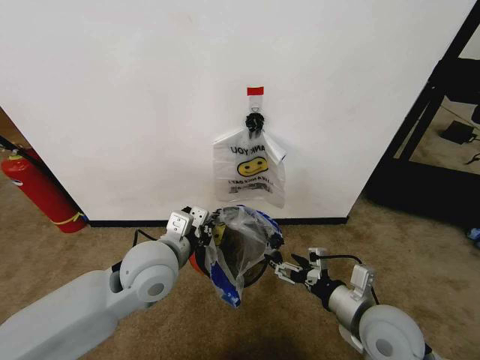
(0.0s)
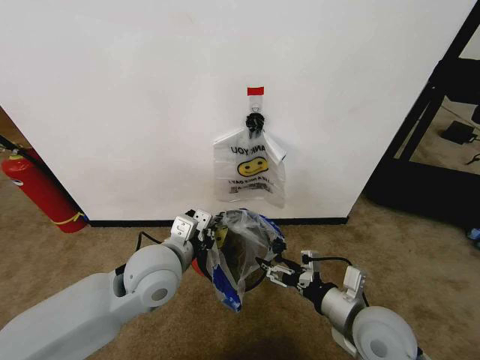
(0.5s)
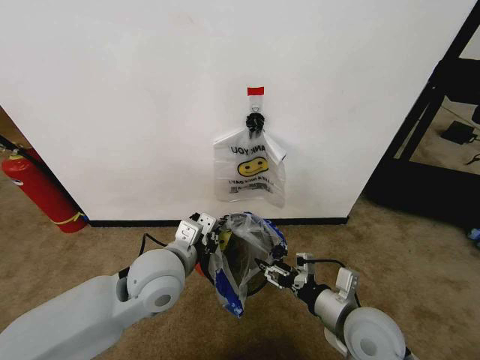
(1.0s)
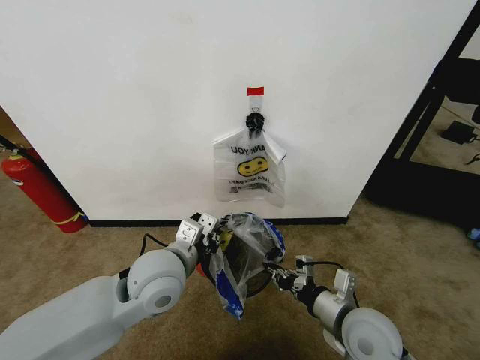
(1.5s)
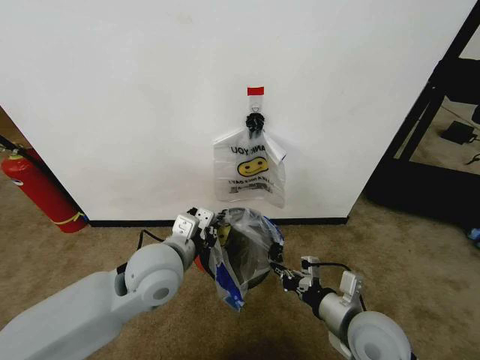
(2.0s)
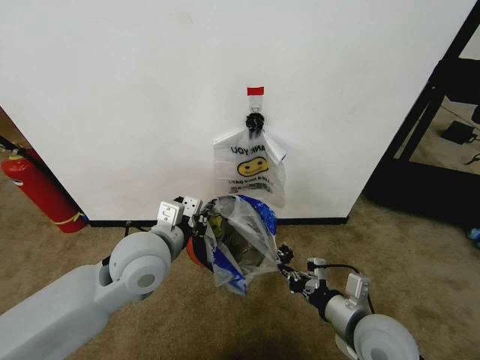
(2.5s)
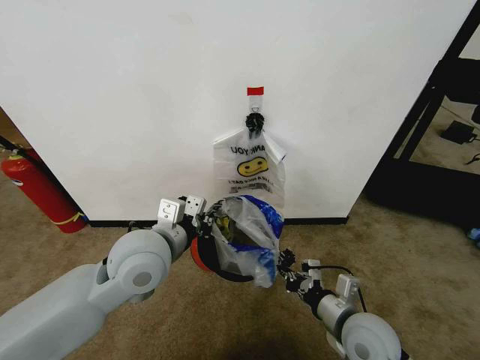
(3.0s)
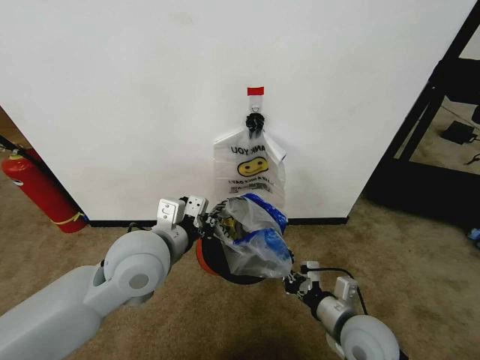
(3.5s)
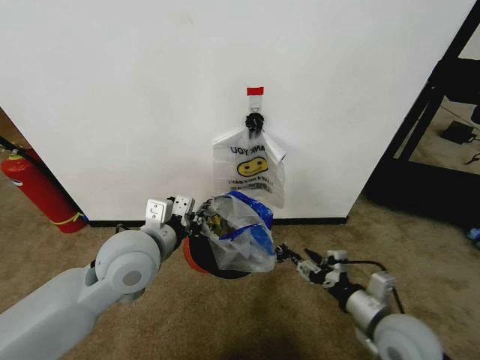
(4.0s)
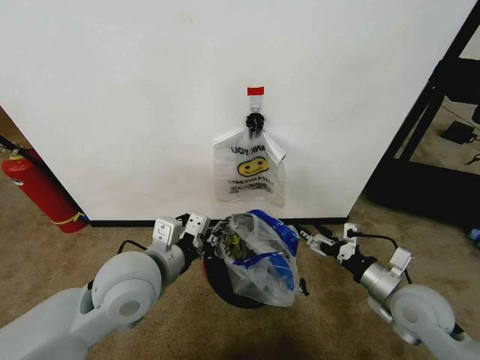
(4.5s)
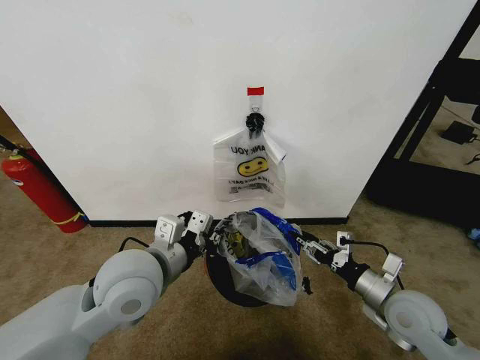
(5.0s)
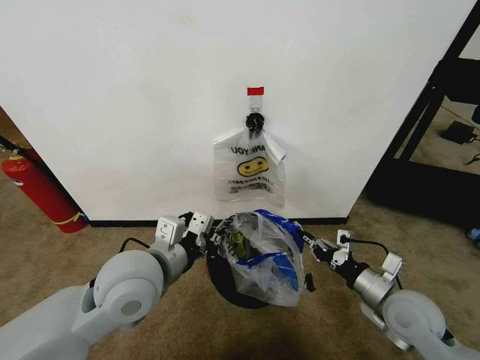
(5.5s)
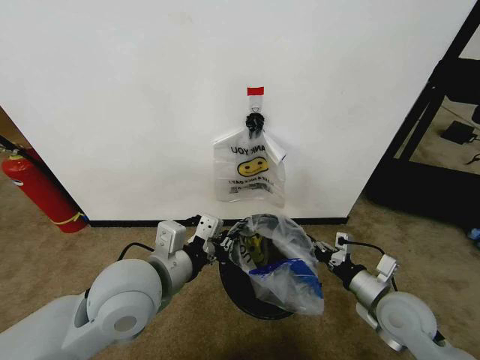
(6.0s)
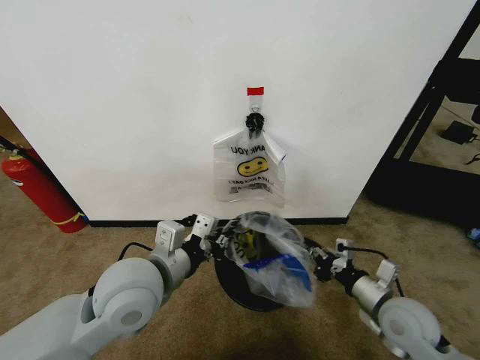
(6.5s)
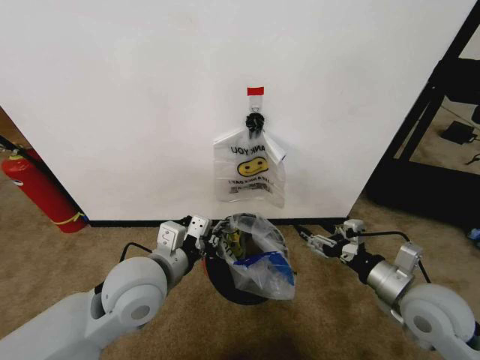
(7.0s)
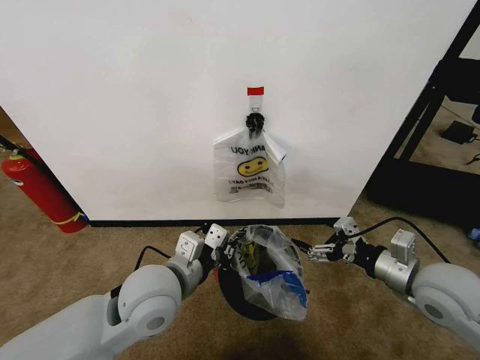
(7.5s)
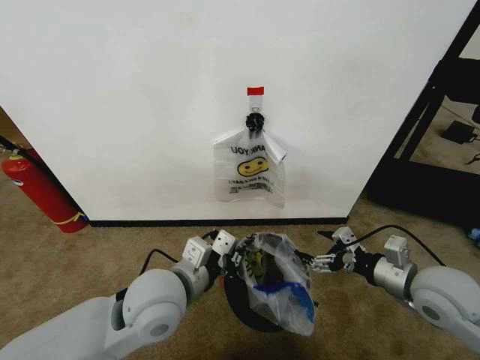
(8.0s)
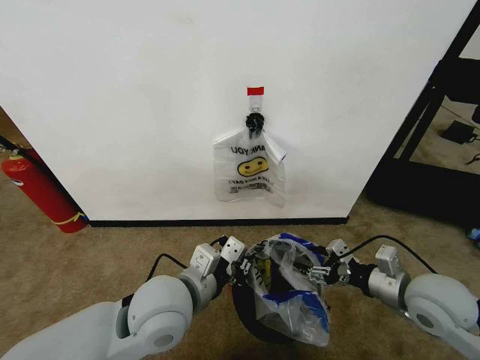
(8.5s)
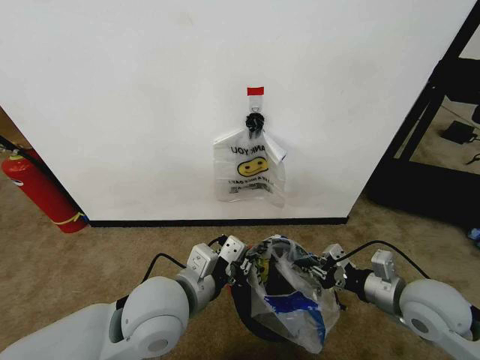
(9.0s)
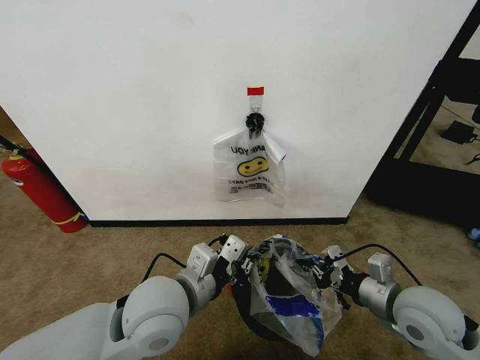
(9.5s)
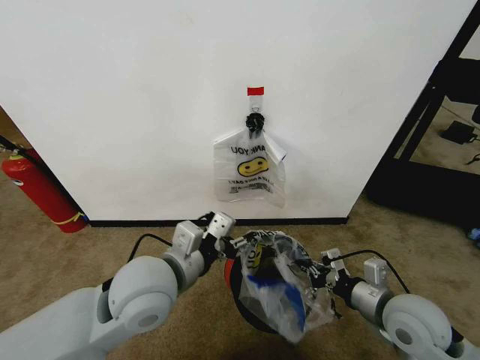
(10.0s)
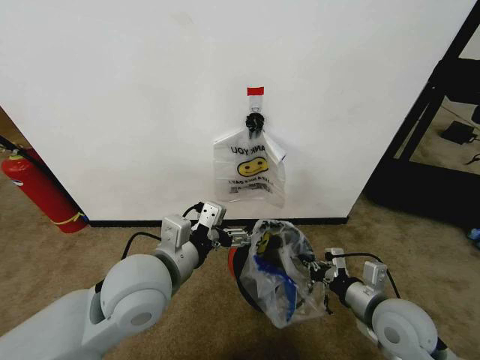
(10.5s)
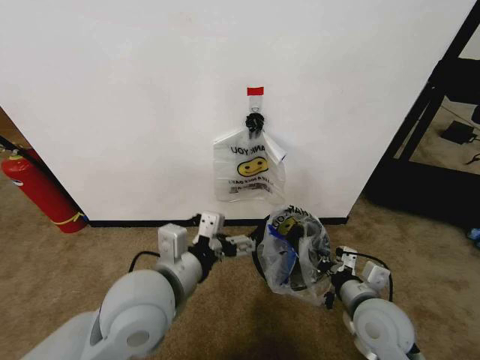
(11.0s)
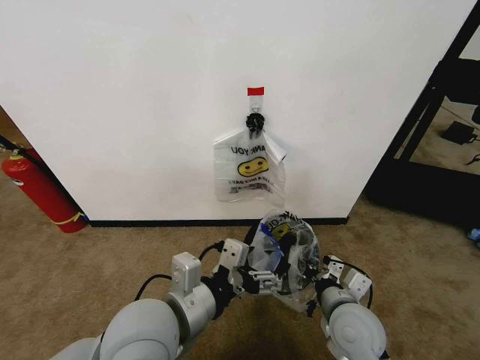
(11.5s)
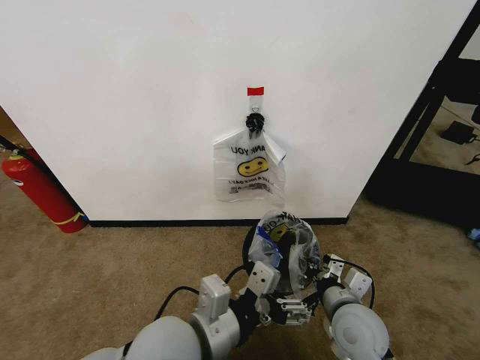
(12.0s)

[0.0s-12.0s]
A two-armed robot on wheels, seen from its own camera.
Task of the whole recording: Pick up the garbage bag from the wall and place it over the trash bin.
0.0s to 2.0s: The right gripper closes.
2.0s to 4.0s: The right gripper opens its fingers.
4.0s to 6.0s: The left gripper moves backward, some 5 cm. Meanwhile the right gripper changes place by about 5 cm, and closes.
6.0s to 8.0s: The left gripper shifts by about 5 cm; the right gripper moves upward, some 10 cm, and opens its fingers.
8.0s to 10.0s: The left gripper opens its fingers; the right gripper changes place by some 5 cm, and closes up.
10.0s to 12.0s: The left gripper travels backward by some 10 cm. The right gripper goes approximately 10 cm to the left.

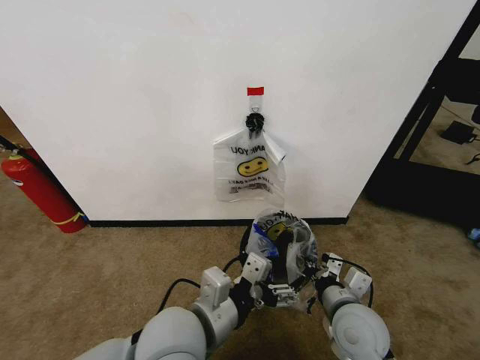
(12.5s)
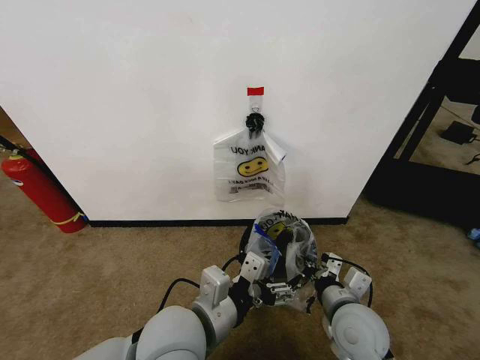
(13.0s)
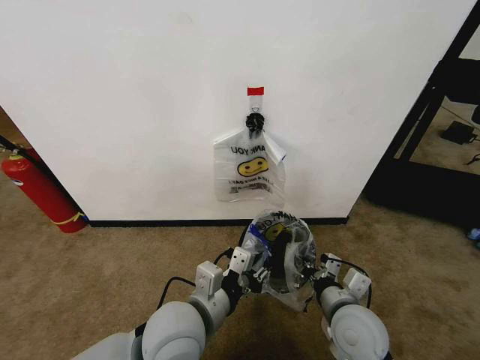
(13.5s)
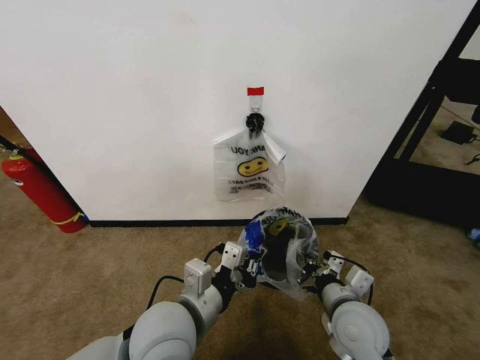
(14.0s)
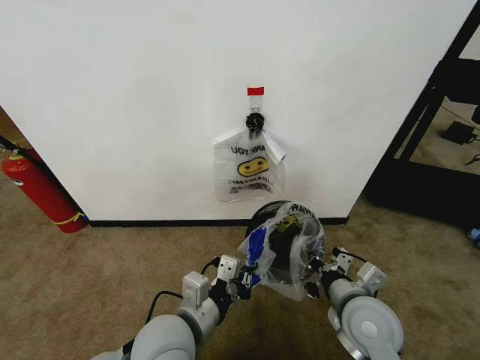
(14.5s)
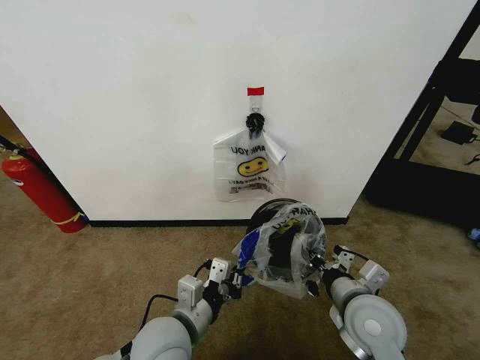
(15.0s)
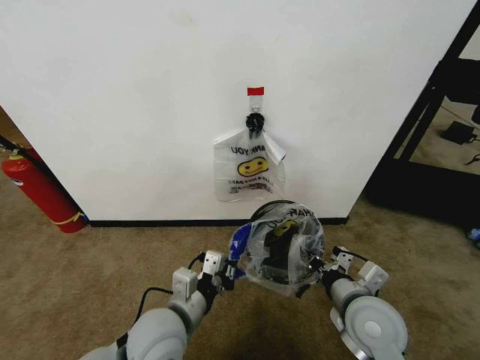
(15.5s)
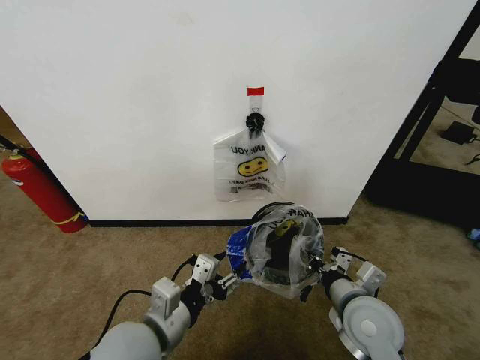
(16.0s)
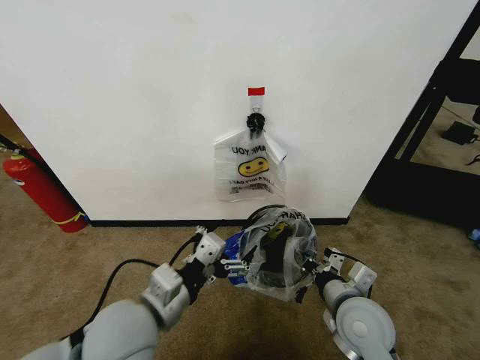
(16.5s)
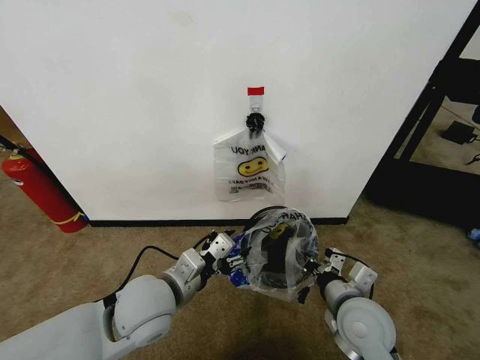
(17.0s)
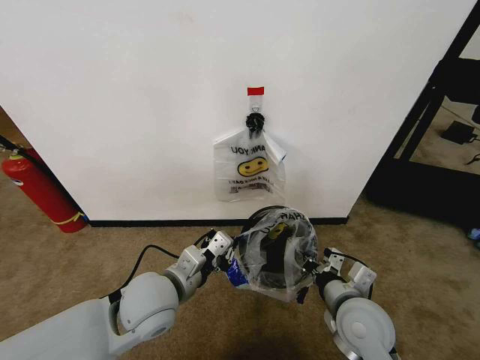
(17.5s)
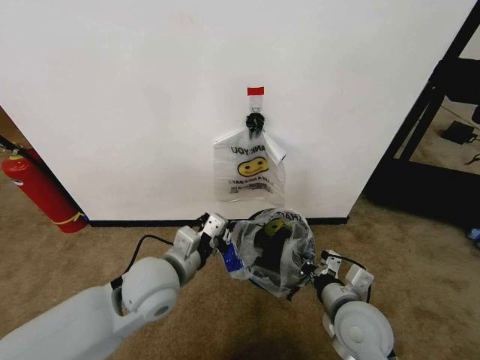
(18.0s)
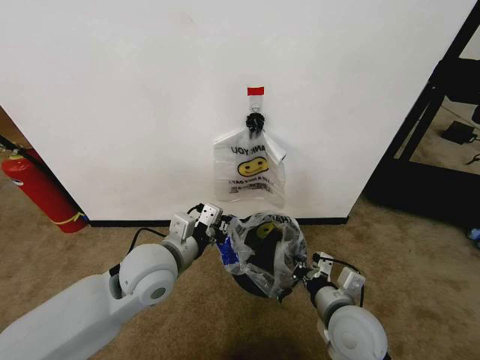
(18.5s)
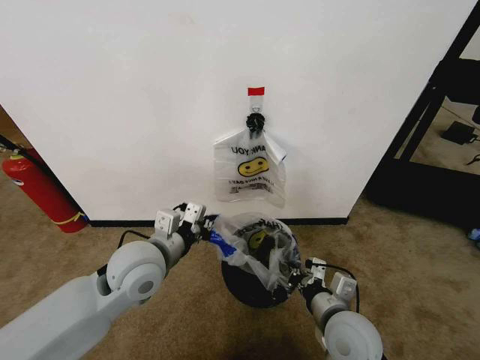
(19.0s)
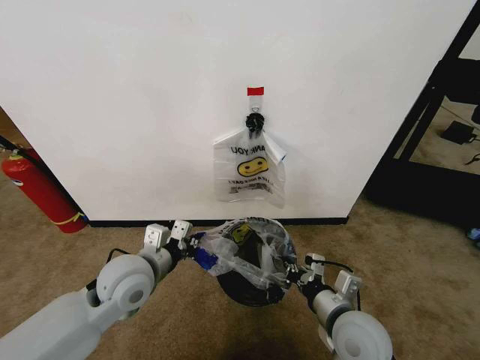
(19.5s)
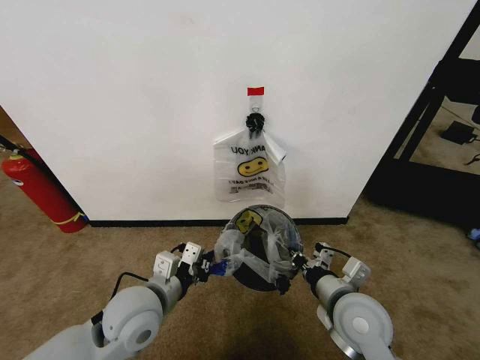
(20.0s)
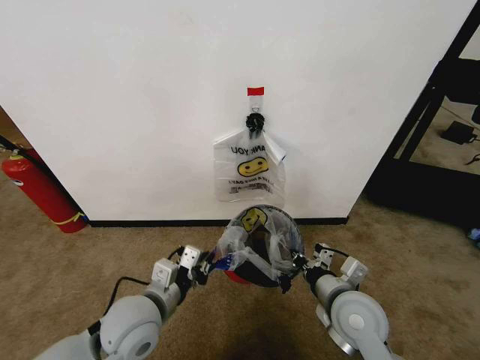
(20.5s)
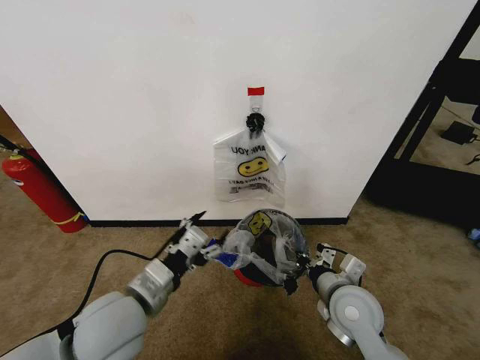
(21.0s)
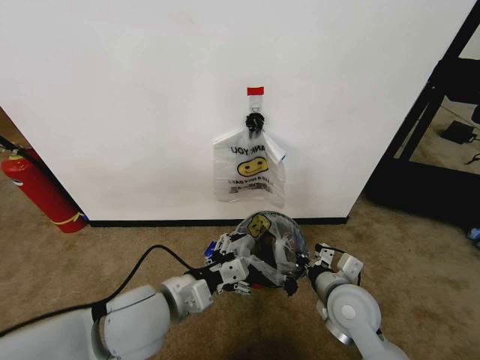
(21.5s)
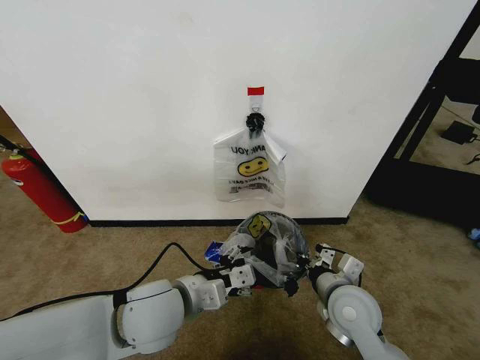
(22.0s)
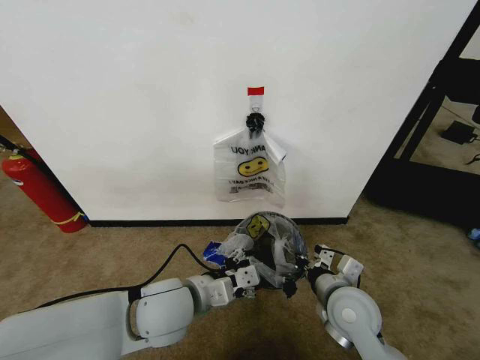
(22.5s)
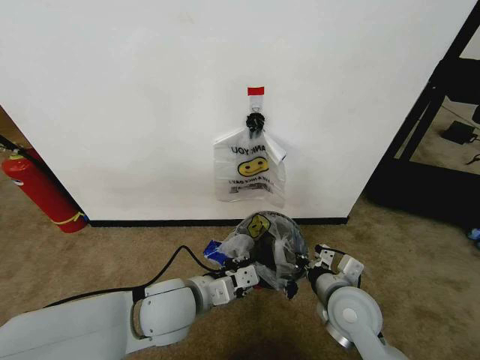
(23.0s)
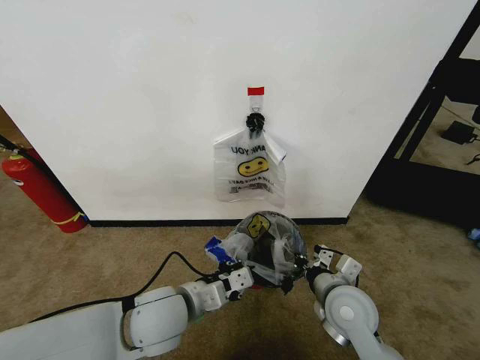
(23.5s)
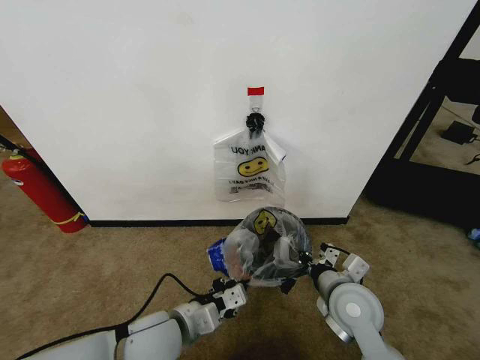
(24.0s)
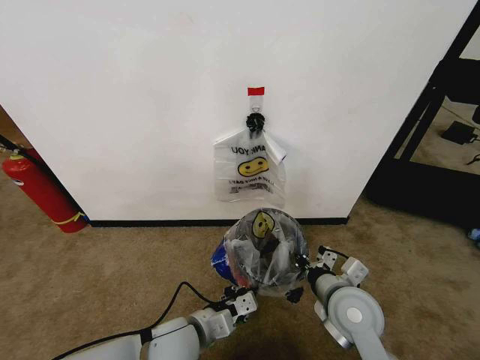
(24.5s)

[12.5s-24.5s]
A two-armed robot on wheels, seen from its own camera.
Task of the whole recording: Pick up the garbage bag from the wall and place it over the trash bin.
12.5s to 14.5s: The left gripper closes.
14.5s to 16.5s: The left gripper ends up roughly 5 cm from where it was, and opens its fingers.
16.5s to 18.5s: The left gripper is displaced forward by roughly 10 cm, and closes.
18.5s to 20.5s: The left gripper moves backward and downward, roughly 10 cm.
20.5s to 22.5s: The left gripper heads to the right, covering approximately 5 cm, and opens up.
22.5s to 24.5s: The left gripper goes some 10 cm downward, and closes.

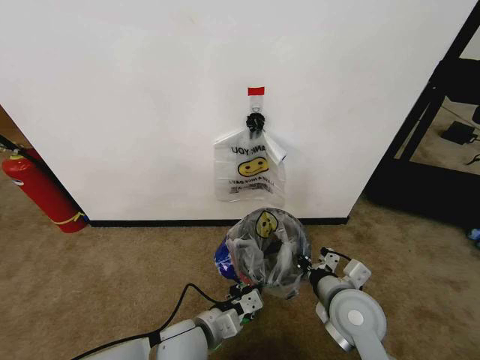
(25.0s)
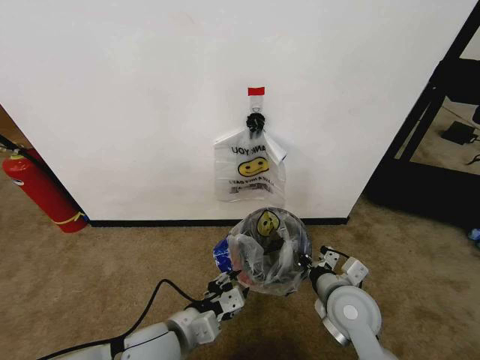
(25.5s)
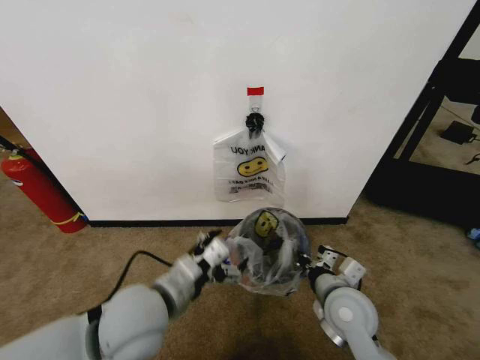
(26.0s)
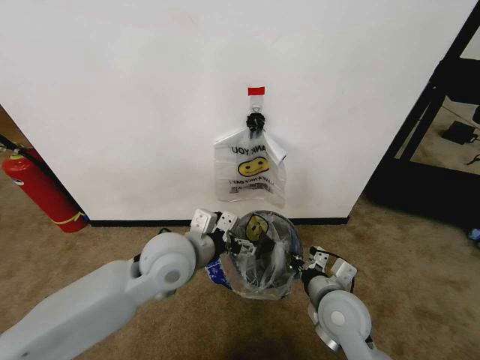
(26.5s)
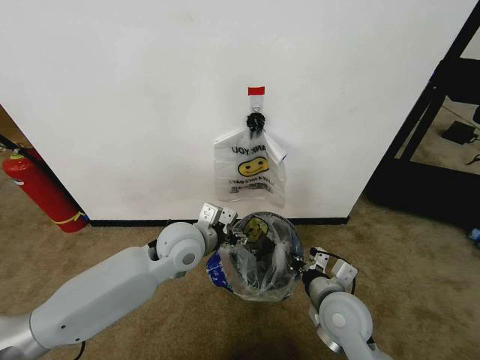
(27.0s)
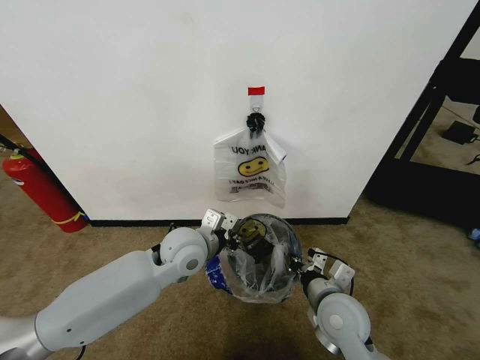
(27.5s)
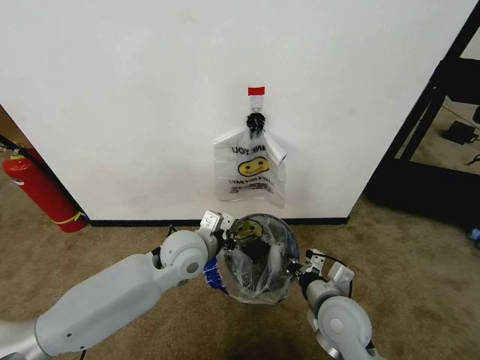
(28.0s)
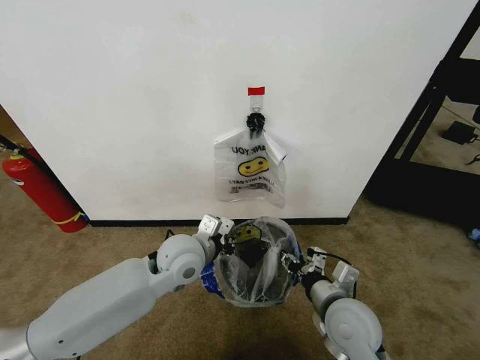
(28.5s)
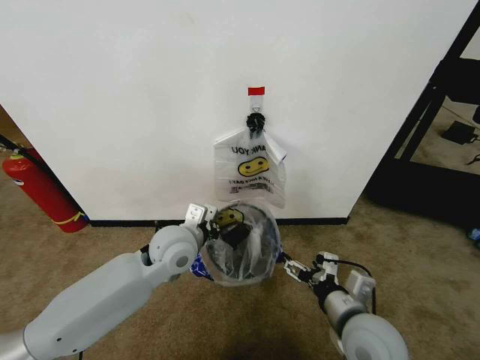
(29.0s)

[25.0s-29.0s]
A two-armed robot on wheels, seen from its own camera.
Task of the whole recording: Pick up the garbage bag from the wall and place it over the trash bin.
25.0s to 27.0s: The left gripper is displaced forward and upward by some 20 cm, and opens its fingers.
27.0s to 29.0s: The left gripper closes. Meanwhile the right gripper opens its fingers.
